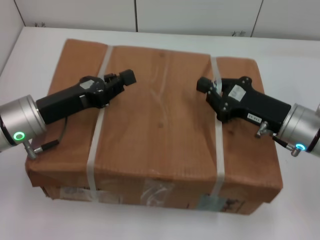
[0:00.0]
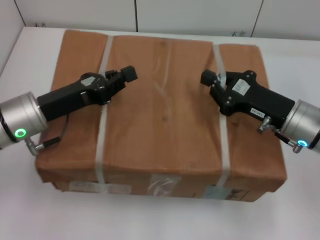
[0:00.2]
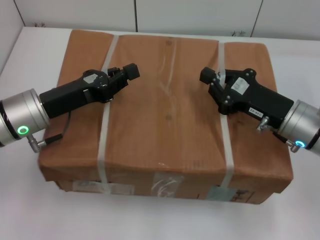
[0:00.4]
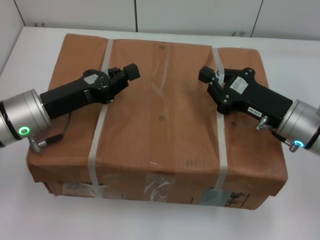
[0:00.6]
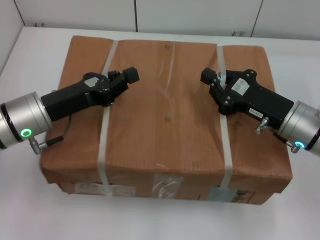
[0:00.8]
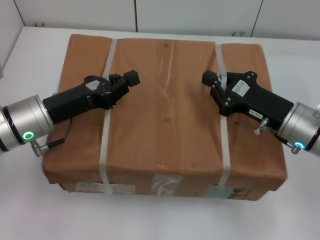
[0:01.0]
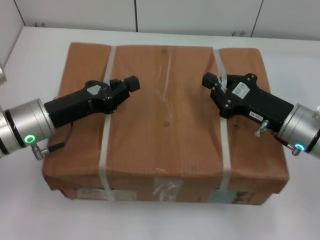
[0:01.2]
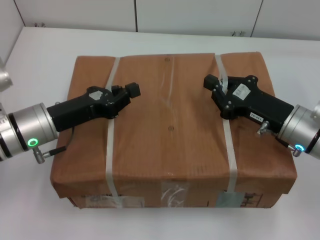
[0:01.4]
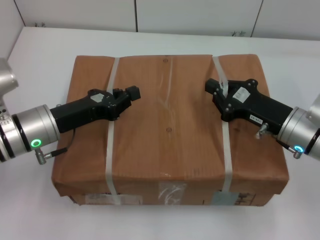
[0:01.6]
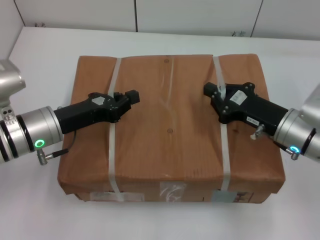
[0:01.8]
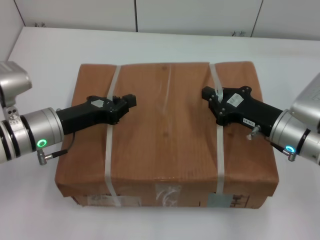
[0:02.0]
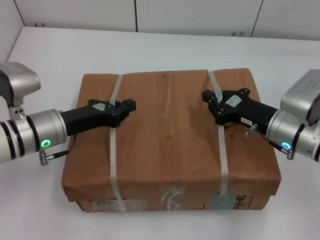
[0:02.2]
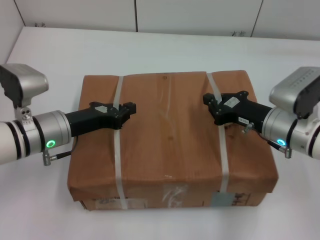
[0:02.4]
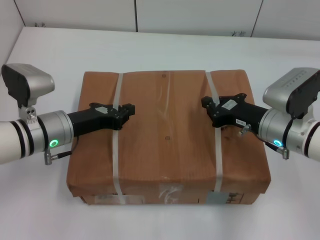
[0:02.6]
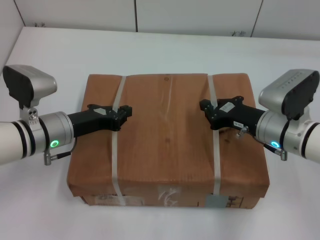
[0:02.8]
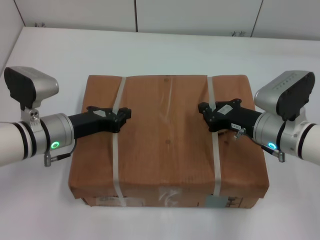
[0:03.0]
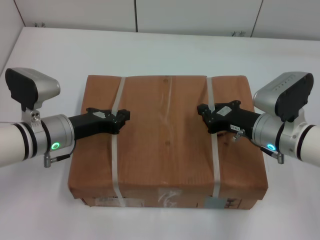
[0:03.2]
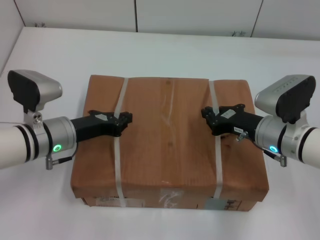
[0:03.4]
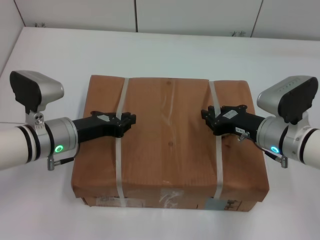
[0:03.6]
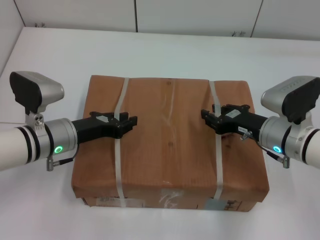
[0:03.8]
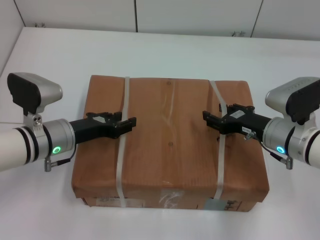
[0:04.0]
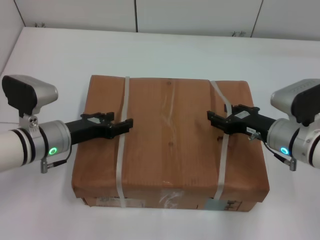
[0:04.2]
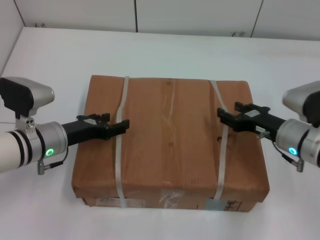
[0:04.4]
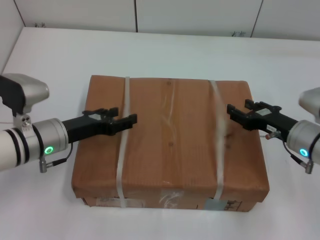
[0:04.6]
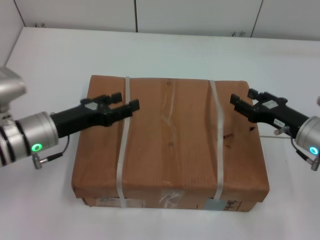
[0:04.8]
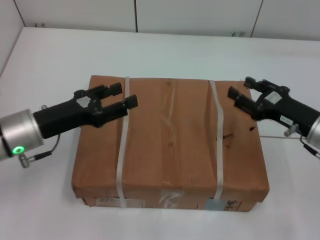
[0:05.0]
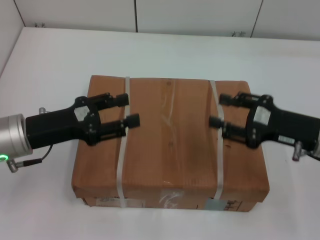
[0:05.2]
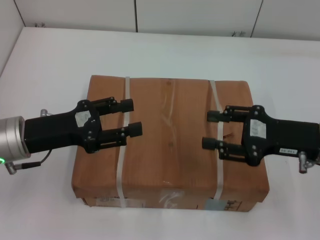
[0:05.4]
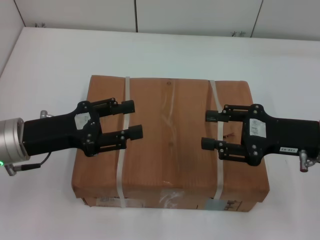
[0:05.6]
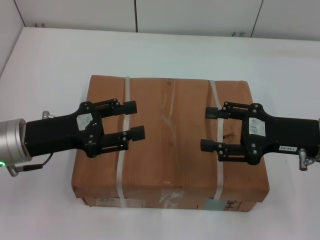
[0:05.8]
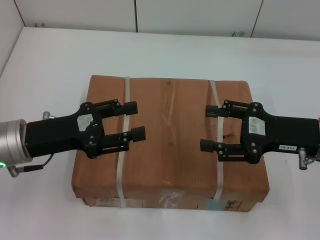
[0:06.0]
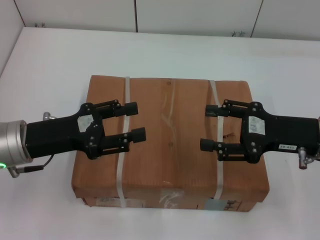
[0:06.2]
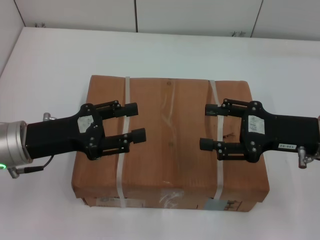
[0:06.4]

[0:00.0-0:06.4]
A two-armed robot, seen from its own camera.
Task of the whole recording: place the box on the table with both arms.
Step, 0:00.0 to 0:03.4: Place the box on the table with left gripper.
Step, 0:00.0 to 0:03.4: Place the box on the table with right gripper.
Step, 0:03.6 to 0:04.2: Loosen the box on the table with left gripper.
Step, 0:03.6 to 0:04.2: Loosen the box on the table with right gripper.
0:03.2 to 0:04.8: The left gripper opens its fingers. The right gripper heads to the right, covering about 5 cm, and opens its fingers.
0:04.8 to 0:06.4: The right gripper travels upward by some 10 cm. Meanwhile the left gripper moves some 5 cm.
